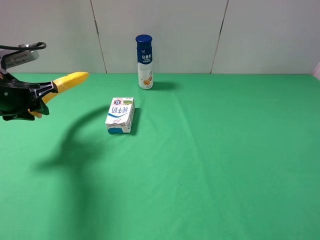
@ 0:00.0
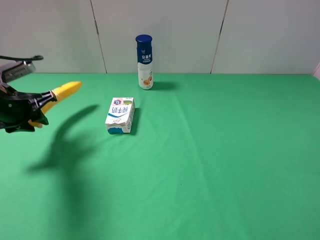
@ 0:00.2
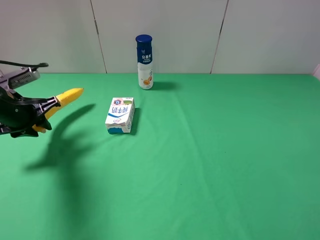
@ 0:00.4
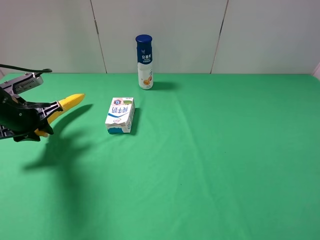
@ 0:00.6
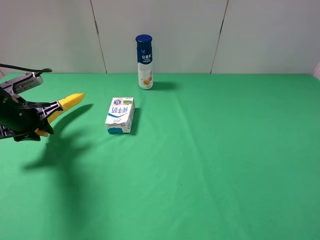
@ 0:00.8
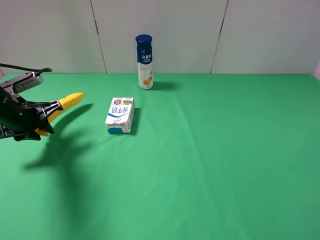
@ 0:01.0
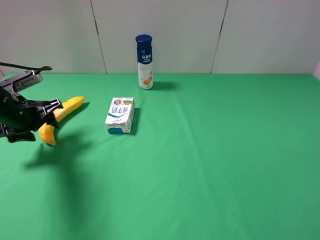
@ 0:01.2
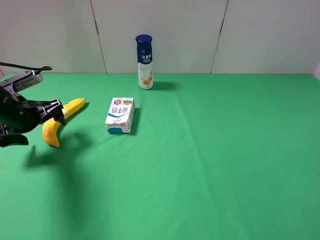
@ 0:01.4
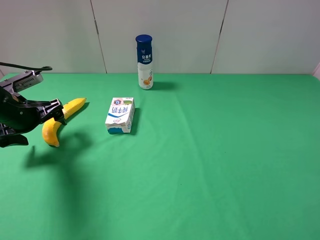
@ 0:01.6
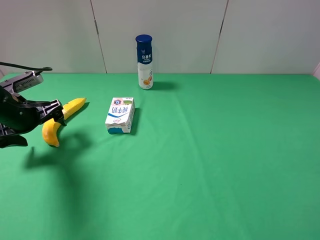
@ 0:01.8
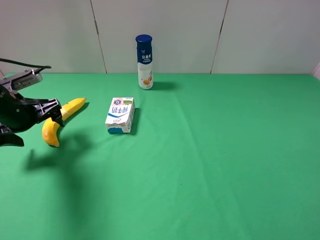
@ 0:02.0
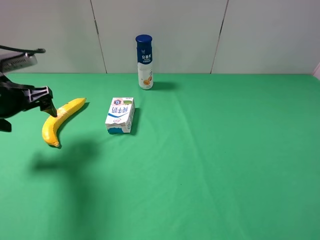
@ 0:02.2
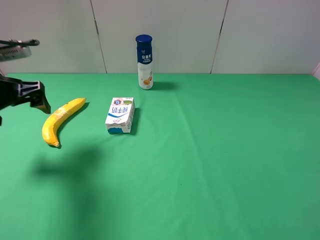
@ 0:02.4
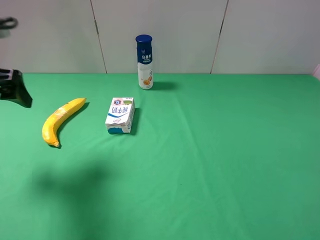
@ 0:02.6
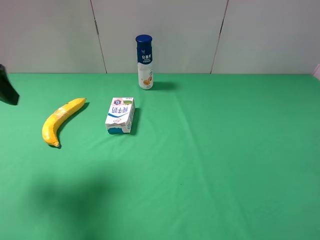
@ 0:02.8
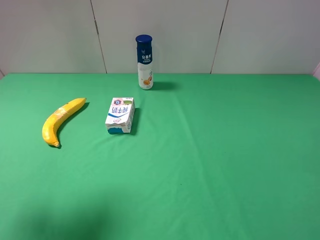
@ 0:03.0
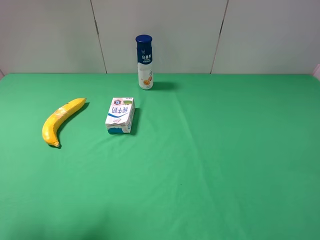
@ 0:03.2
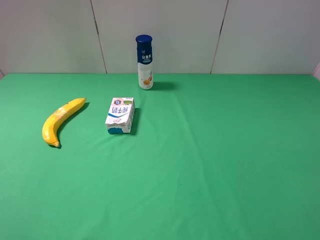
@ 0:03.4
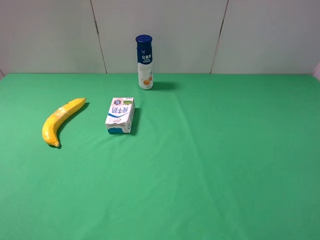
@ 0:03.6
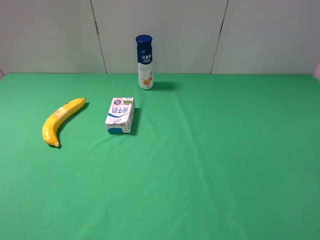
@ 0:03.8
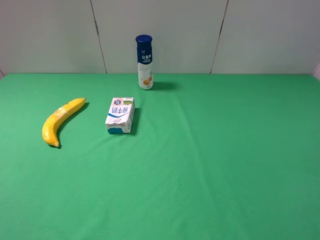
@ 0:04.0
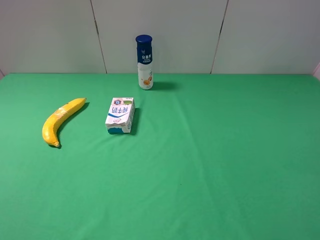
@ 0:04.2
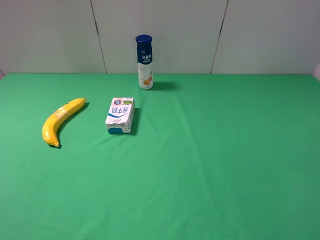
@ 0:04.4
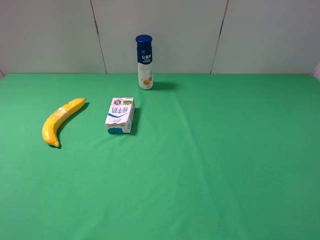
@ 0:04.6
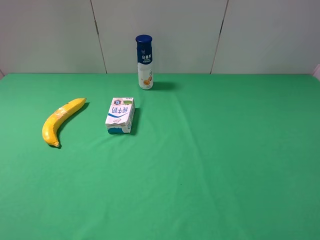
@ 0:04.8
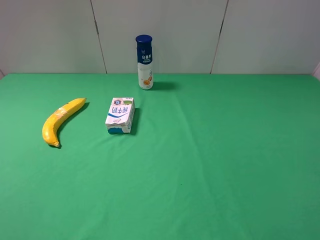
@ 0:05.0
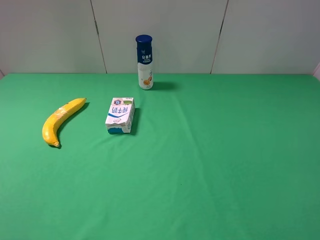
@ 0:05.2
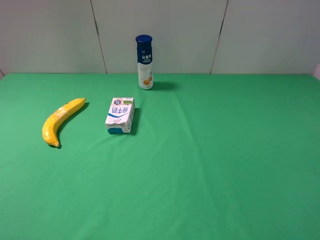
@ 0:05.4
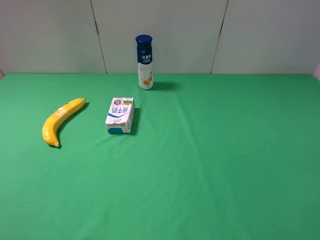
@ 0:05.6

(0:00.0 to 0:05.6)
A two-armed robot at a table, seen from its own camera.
Task of the whole recording: use the right gripper to pick up the item and transfer it from the right gripper to the left gripper.
0:00.0 - 0:01.4: The left gripper goes some 5 cm downward, and opens.
0:01.4 - 0:02.8: The left gripper goes some 20 cm upward and backward.
0:02.8 - 0:04.2: The left gripper shifts about 20 cm backward.
0:04.2 - 0:05.6: Both grippers stay put.
